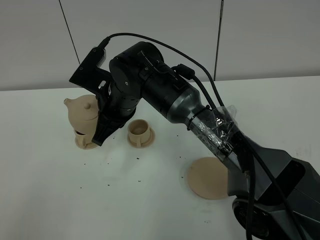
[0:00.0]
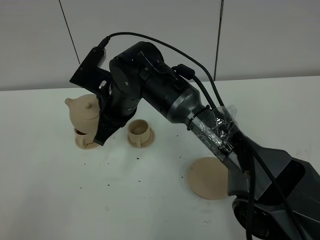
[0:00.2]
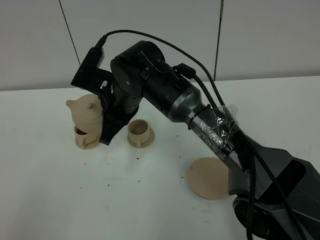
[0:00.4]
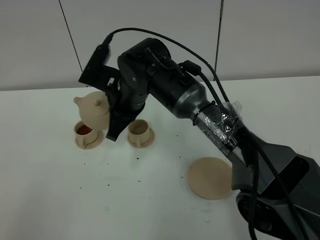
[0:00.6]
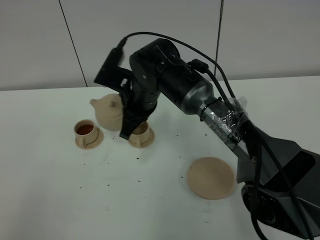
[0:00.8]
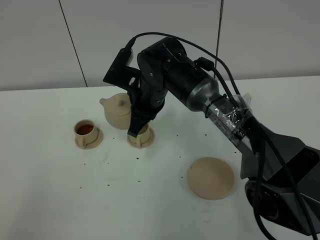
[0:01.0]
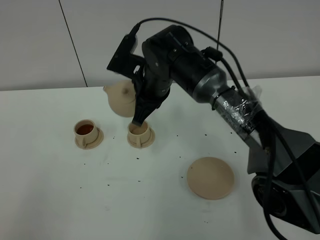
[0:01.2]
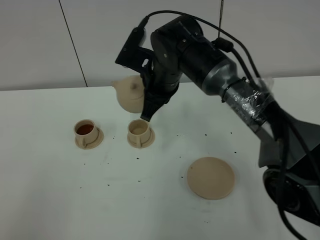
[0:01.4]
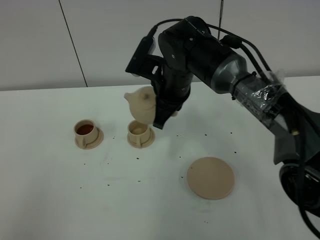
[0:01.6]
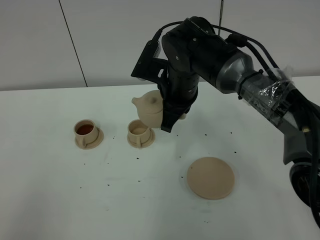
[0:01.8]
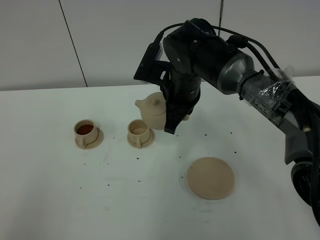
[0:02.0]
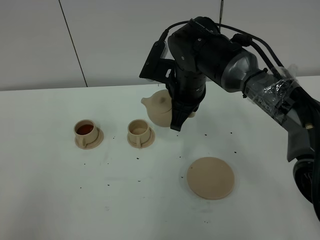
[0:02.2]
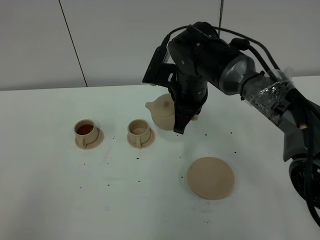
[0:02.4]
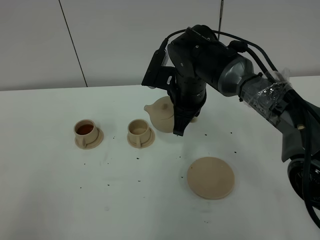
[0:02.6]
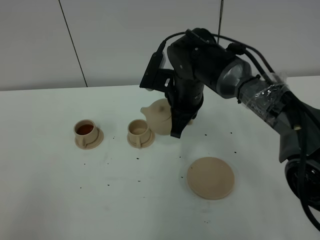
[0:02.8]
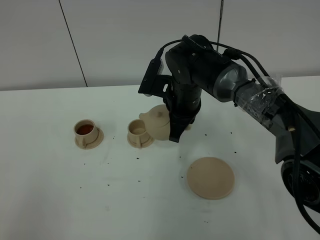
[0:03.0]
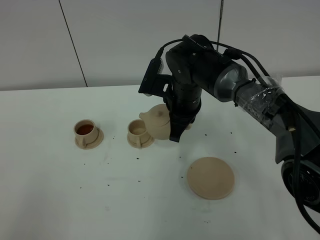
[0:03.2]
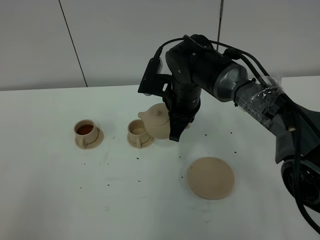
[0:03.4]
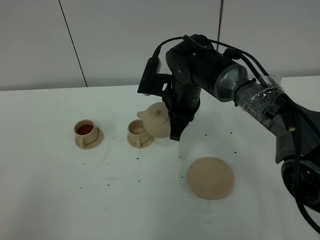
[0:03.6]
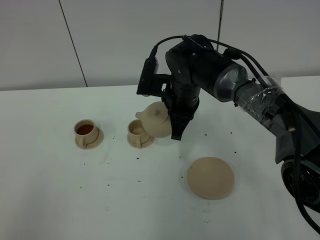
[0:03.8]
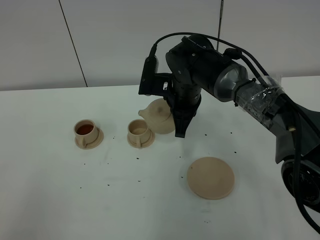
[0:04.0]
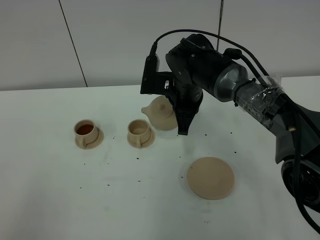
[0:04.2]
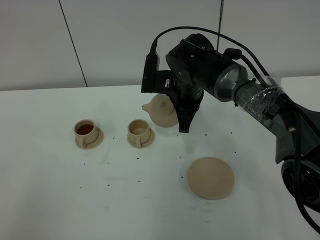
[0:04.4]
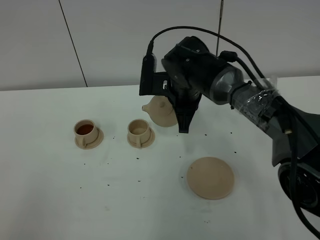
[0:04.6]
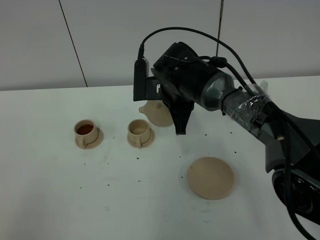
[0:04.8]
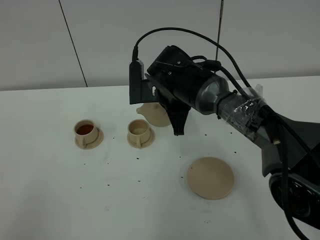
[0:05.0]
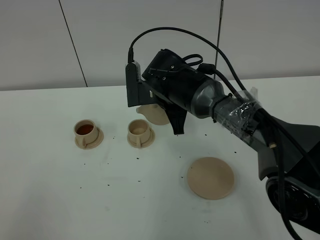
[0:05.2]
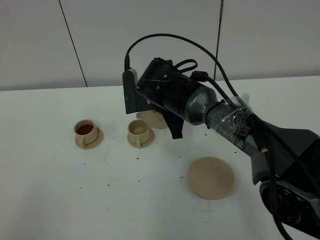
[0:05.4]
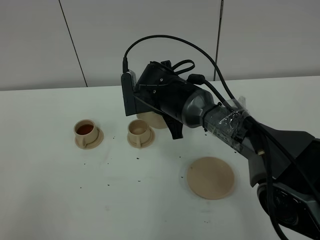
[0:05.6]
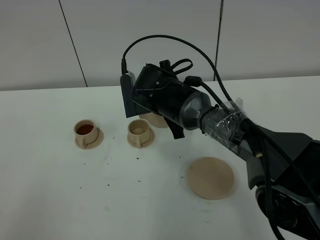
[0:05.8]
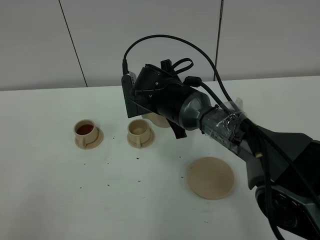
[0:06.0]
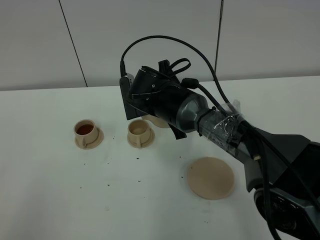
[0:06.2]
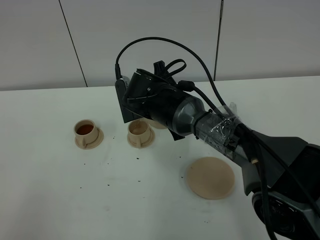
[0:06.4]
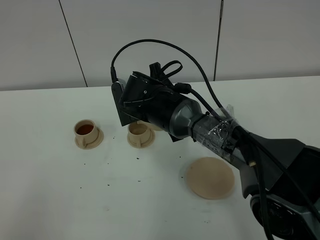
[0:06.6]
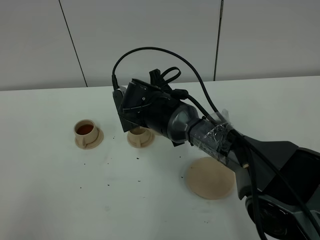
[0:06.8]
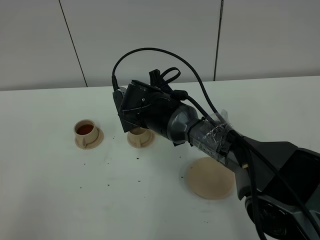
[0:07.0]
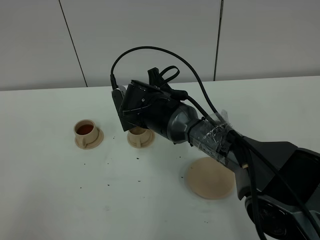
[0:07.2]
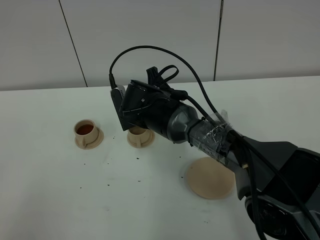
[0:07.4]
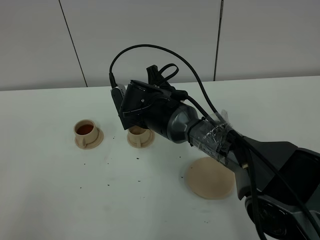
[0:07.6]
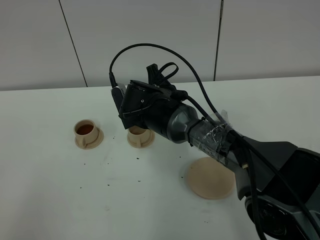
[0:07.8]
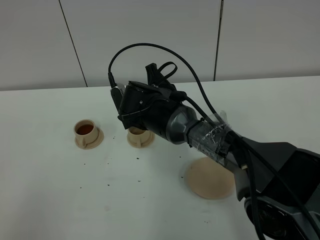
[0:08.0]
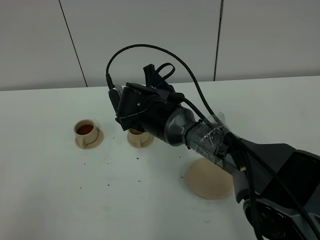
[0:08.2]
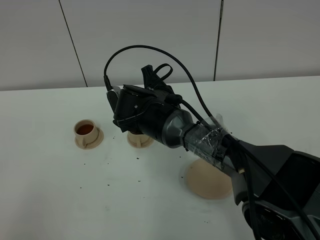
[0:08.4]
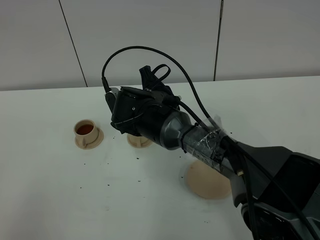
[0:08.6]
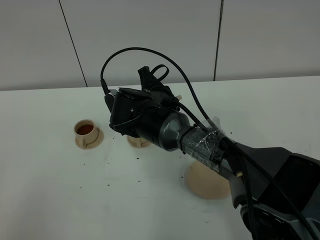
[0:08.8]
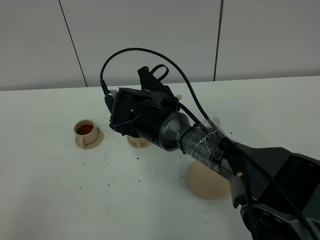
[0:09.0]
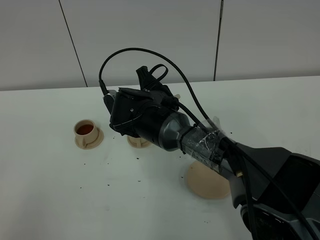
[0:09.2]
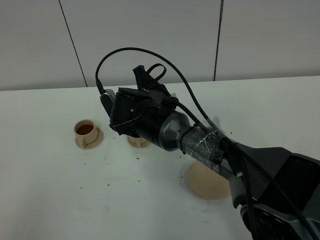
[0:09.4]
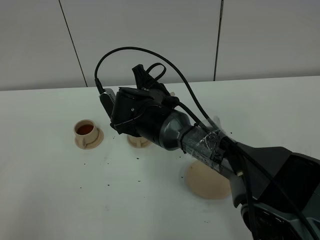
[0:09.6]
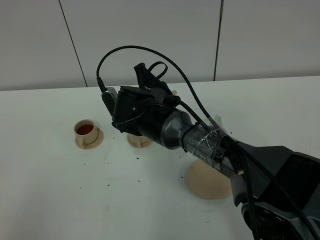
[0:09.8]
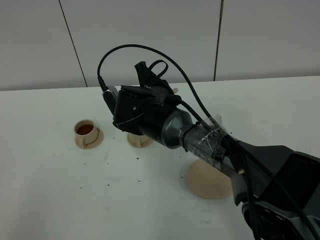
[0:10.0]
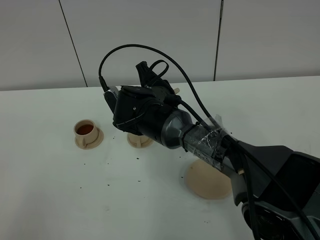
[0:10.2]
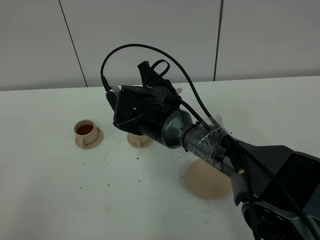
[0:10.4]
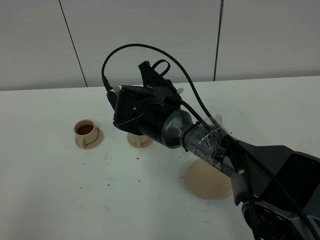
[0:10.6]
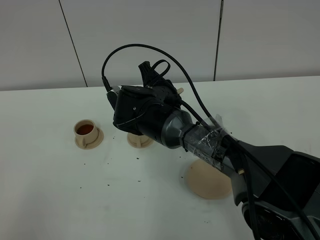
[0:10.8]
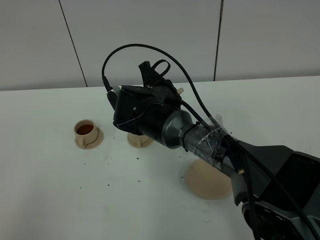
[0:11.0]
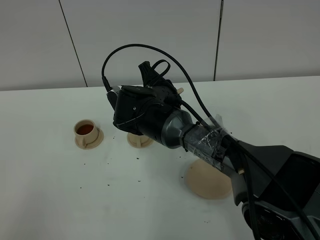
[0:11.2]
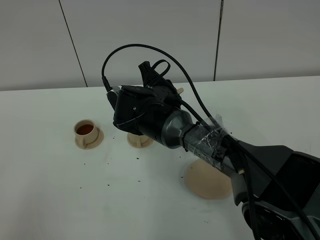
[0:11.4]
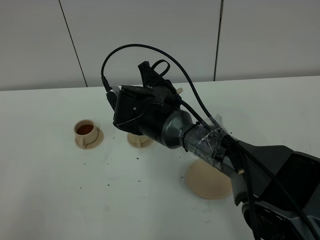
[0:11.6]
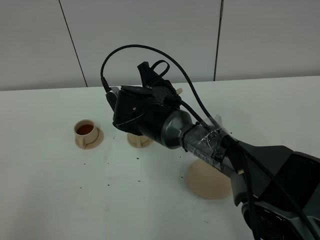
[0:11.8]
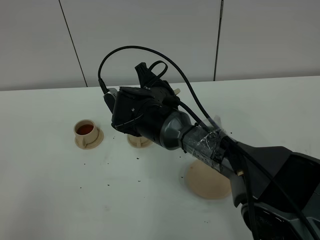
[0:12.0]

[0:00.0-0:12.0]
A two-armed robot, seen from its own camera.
Task of the whole recording: grasp the brown teapot and pour the tea into the two brown teacups one by one, put the brown teapot back in its original place.
0:00.0 to 0:01.6: The right gripper heads to the right, covering some 10 cm.
0:01.6 to 0:04.4: The grippers stay close to where they were, moving slightly.
0:04.4 to 0:06.0: The right gripper changes place by approximately 5 cm.
0:06.0 to 0:09.0: The grippers move only a little.
0:09.0 to 0:12.0: Both grippers stay about where they are.

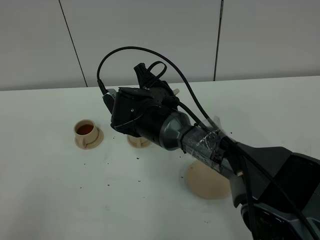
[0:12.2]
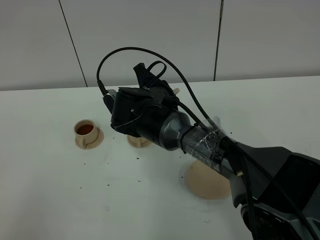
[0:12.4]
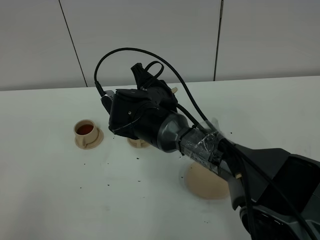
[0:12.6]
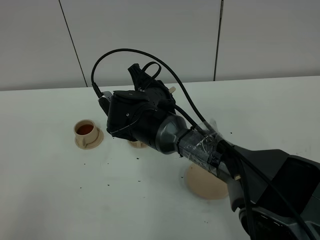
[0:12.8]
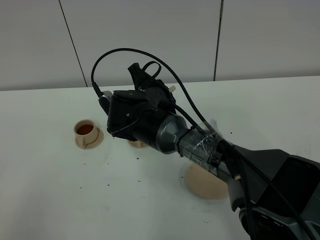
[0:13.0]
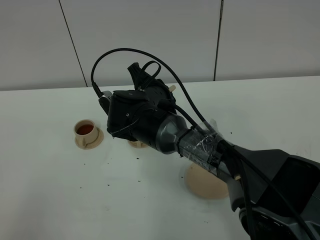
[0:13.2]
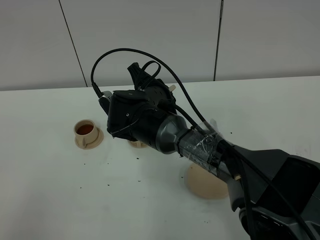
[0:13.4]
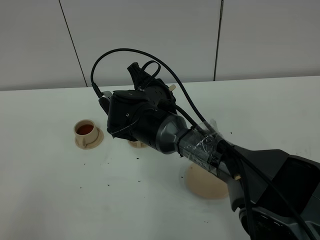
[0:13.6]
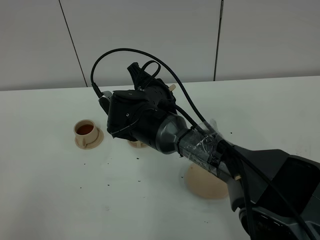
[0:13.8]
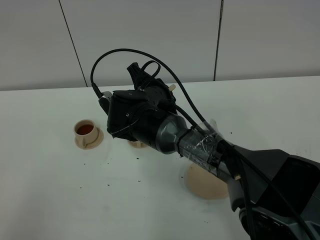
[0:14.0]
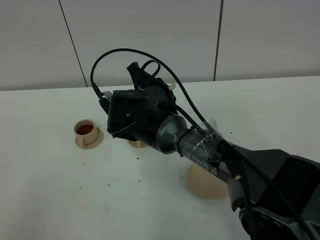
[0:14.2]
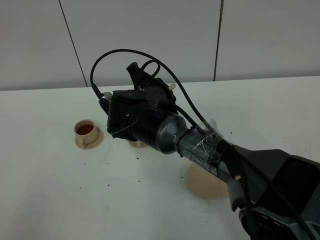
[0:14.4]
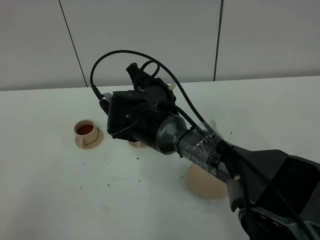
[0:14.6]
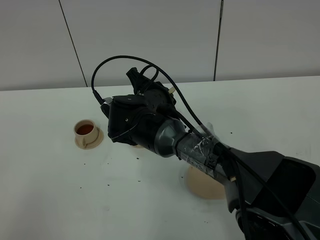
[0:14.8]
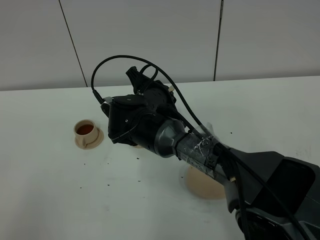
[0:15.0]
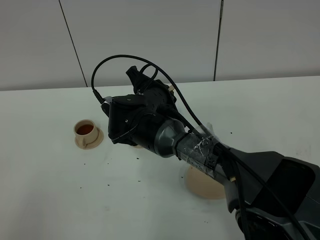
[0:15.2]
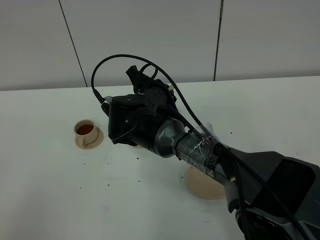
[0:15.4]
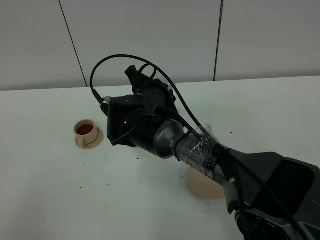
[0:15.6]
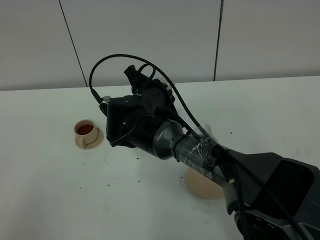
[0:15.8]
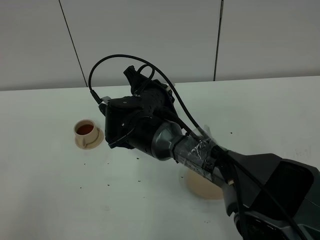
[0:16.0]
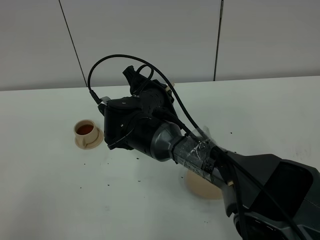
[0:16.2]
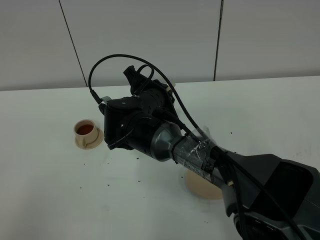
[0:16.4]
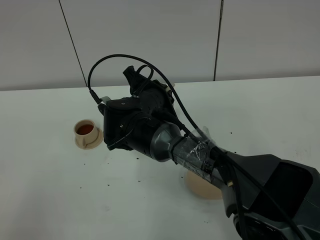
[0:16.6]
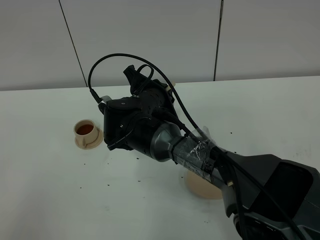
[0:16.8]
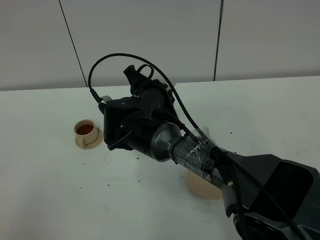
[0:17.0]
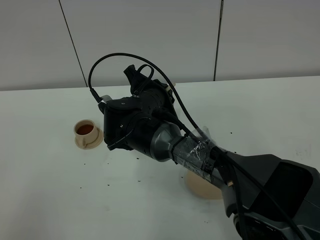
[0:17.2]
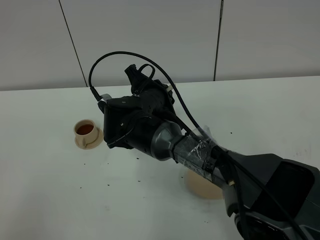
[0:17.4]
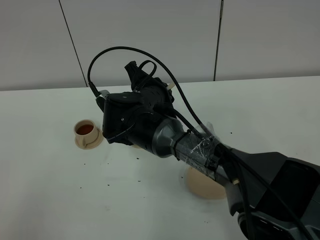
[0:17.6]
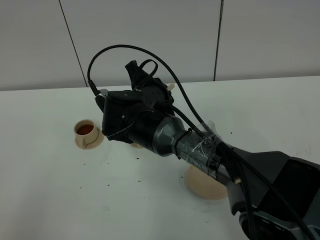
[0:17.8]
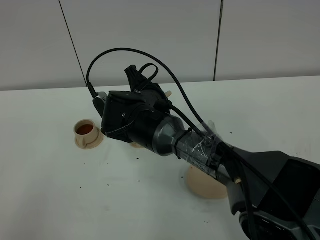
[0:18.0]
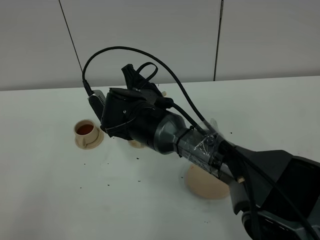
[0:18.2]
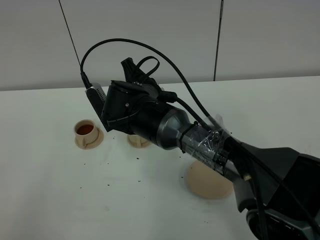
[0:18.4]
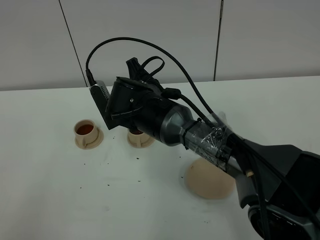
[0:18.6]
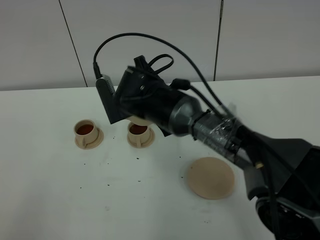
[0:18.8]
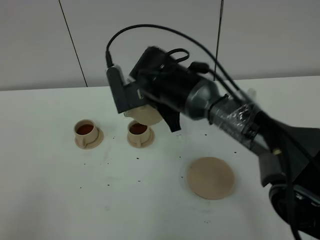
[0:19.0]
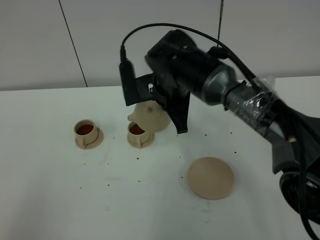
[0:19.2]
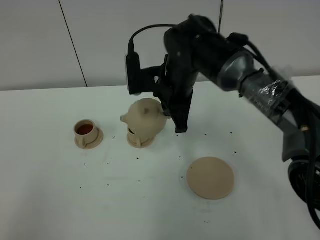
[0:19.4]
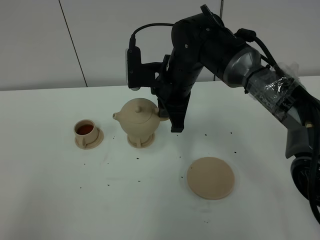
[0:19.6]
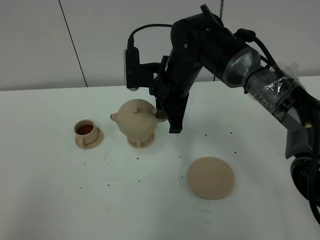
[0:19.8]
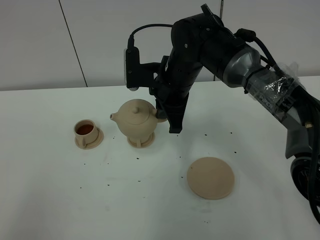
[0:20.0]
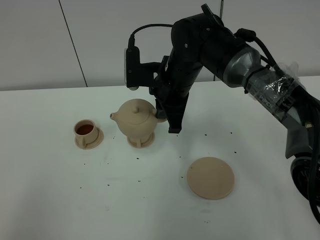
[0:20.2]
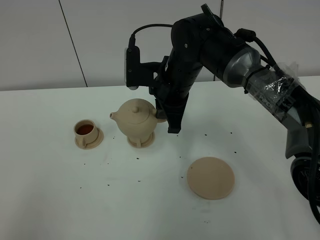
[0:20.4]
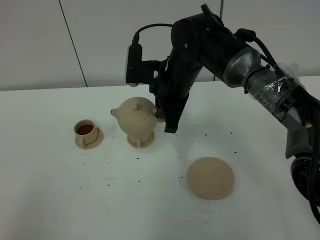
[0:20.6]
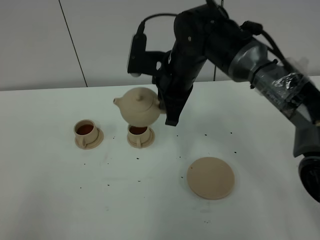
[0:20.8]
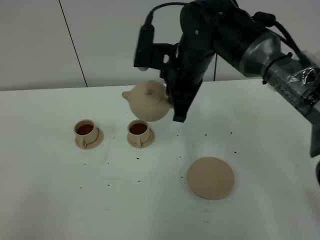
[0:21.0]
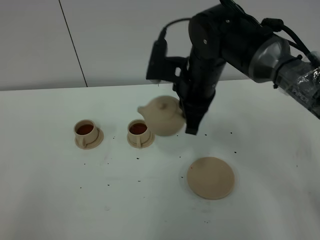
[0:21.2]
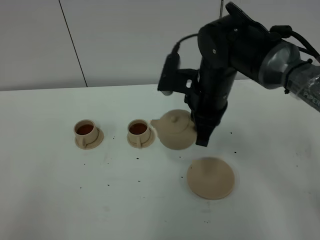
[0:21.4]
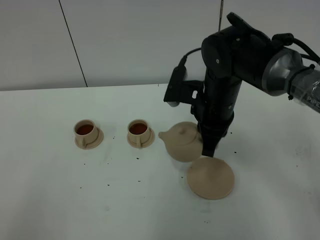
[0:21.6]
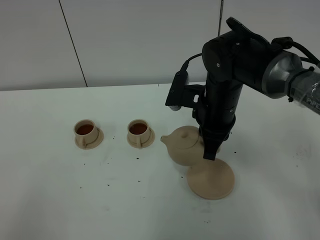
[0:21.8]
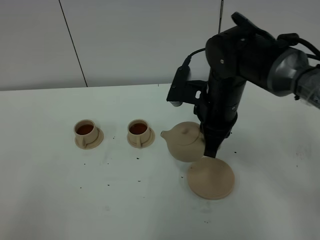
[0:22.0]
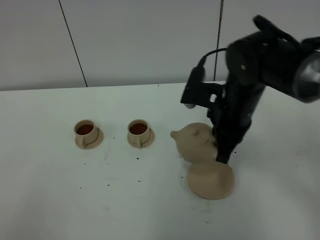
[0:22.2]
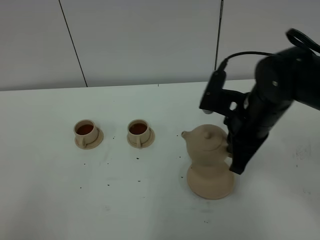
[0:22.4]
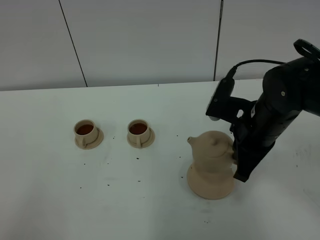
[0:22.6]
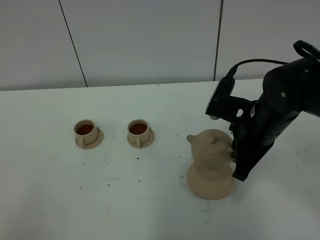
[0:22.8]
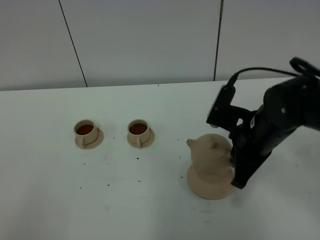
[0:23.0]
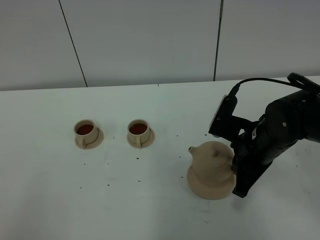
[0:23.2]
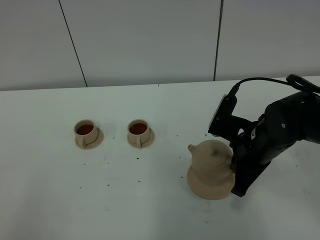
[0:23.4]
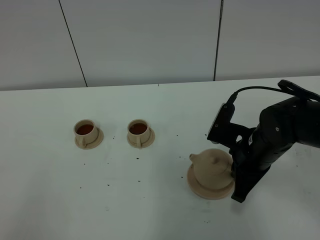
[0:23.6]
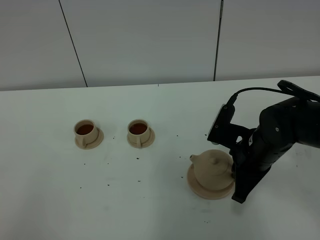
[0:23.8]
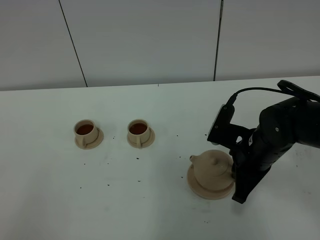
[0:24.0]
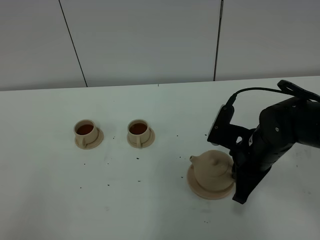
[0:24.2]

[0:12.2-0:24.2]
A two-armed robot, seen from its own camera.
Task of the whole recording: grasp the brown teapot and pour the tea into the two brown teacups one by one, put the brown teapot back in its original place.
Step, 0:12.2 to 0:18.0: Pour tea into the teacup with the right gripper.
0:12.2 to 0:15.2: There are only small adjustments of the grippers.
0:15.2 to 0:16.6: Both grippers stay about where they are.
0:16.6 to 0:18.2: The grippers move only a little.
0:18.2 to 0:19.8: The right gripper moves to the right, some 5 cm.
0:21.2 to 0:22.6: The right gripper is displaced to the right and backward by some 10 cm.
0:22.6 to 0:24.2: The right gripper shifts some 5 cm downward.
